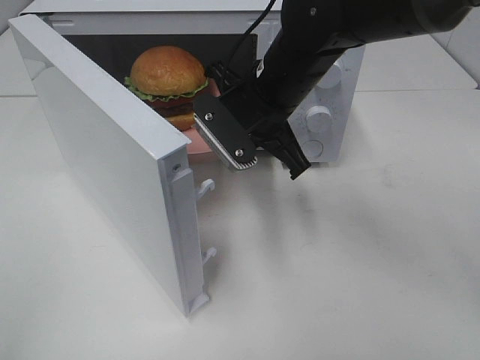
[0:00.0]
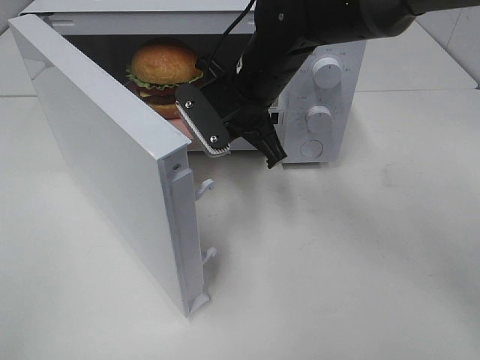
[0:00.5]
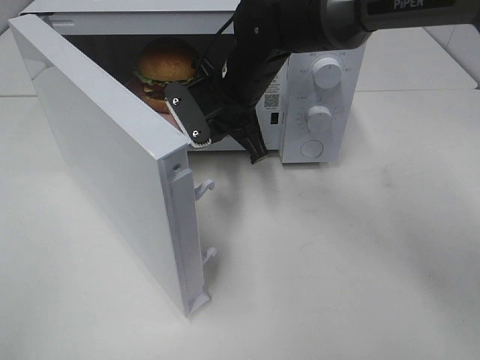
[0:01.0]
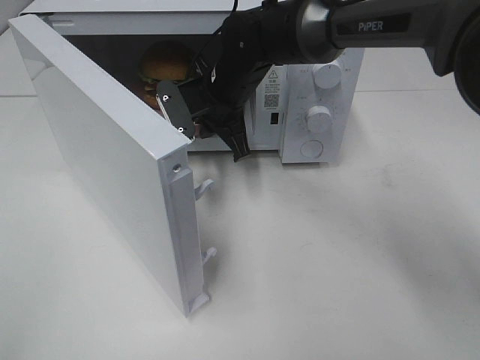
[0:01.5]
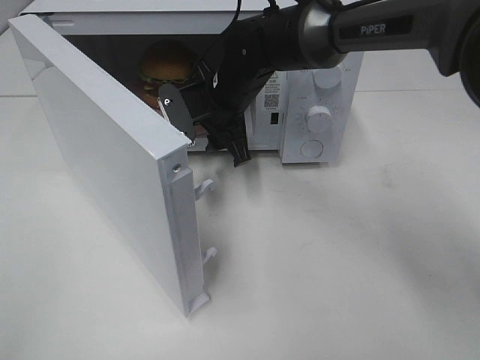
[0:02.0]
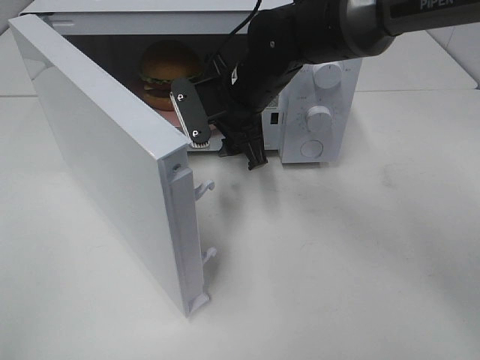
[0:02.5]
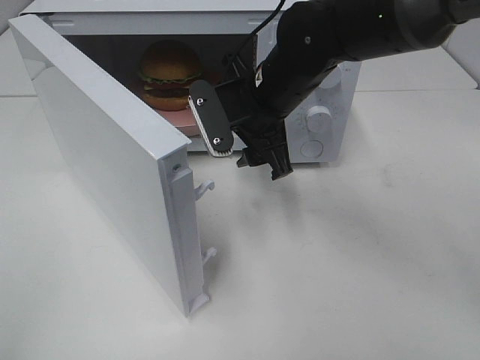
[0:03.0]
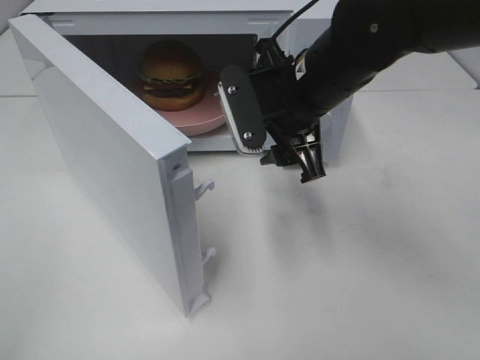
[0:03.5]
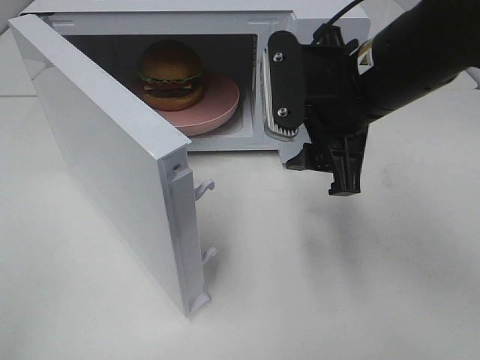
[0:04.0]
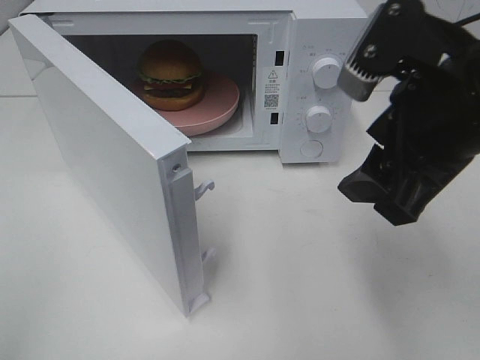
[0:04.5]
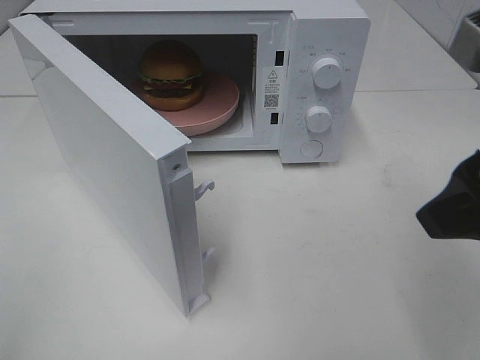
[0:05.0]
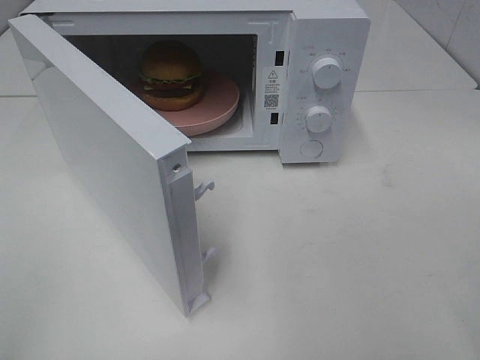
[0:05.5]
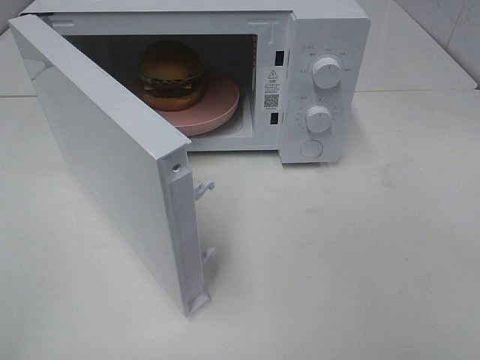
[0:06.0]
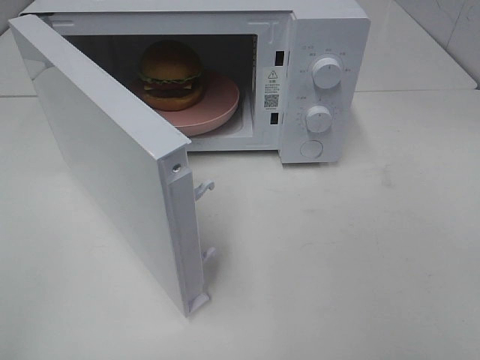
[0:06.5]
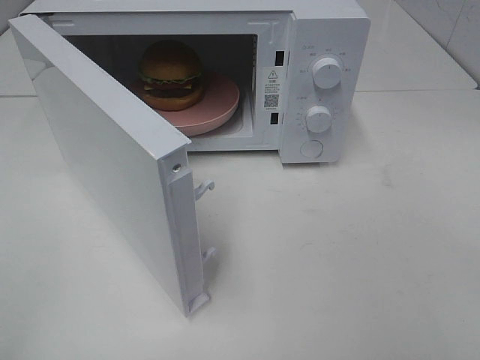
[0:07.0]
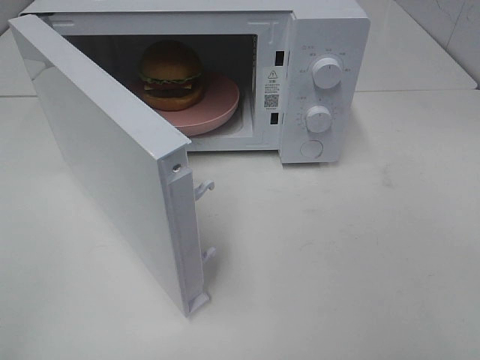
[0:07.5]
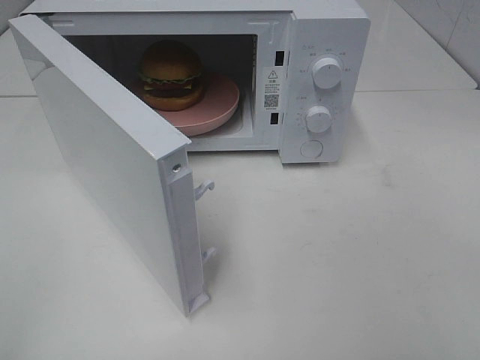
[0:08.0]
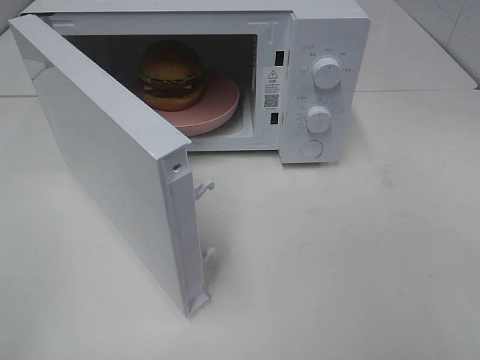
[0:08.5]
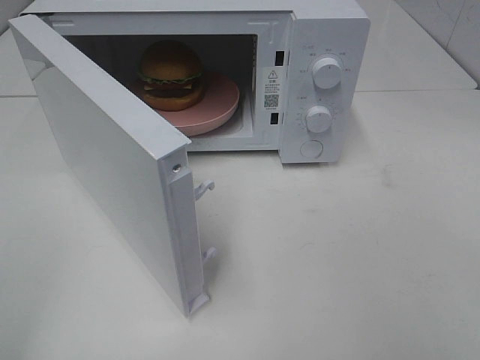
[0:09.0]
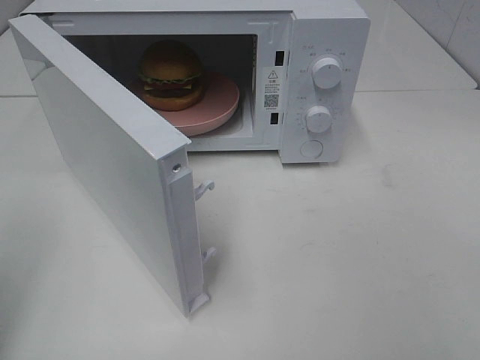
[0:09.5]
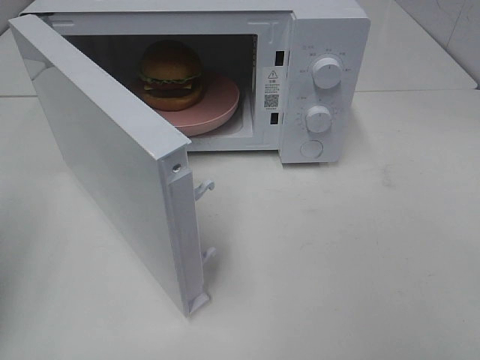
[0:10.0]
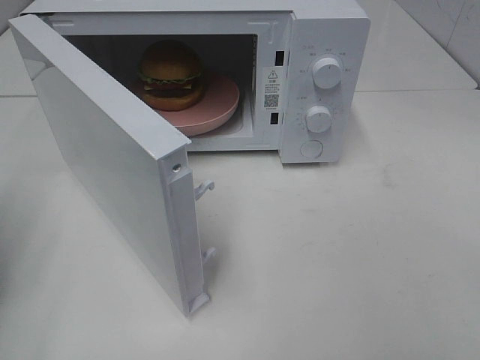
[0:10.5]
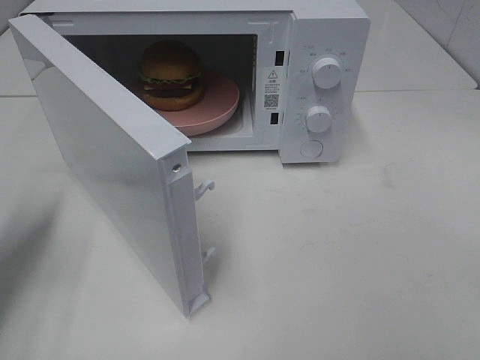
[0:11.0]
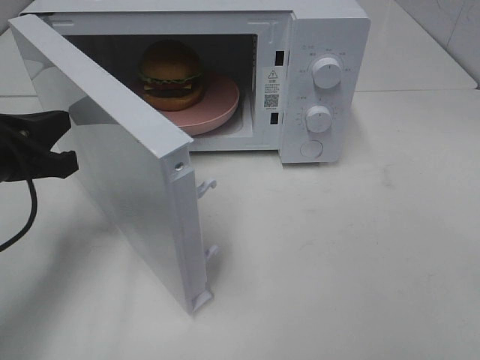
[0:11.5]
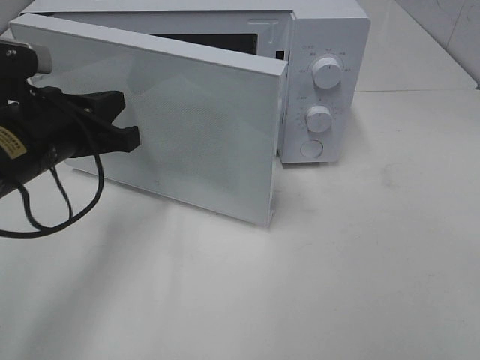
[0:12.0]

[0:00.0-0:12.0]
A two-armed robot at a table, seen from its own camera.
Task of the whole recording: Heat the burger.
Step, 0:00.0 to 0:02.5: Right hand: place the plate in the microwave.
0:00.0 to 0:02.0: The right gripper travels forward and downward by about 10 cm, and opens its fingers.
0:02.0 to 0:04.0: The right gripper is displaced backward, to the right and upward by about 20 cm.
0:04.0 to 0:06.0: The right gripper moves backward and to the right, approximately 30 cm.
0:08.0 to 0:10.0: The left gripper goes about 15 cm forward, and closes.
0:10.0 to 0:12.0: The left gripper shifts about 20 cm to the right, forward and downward.

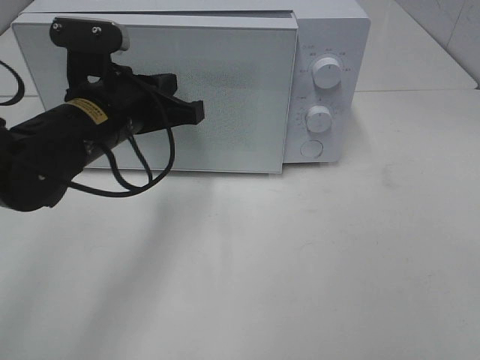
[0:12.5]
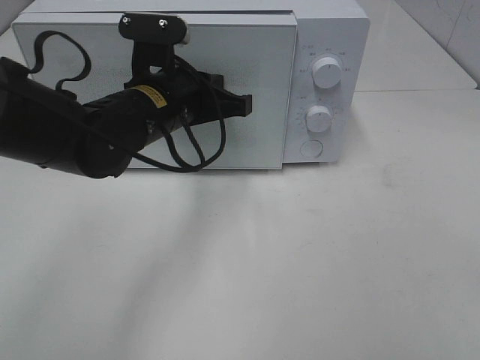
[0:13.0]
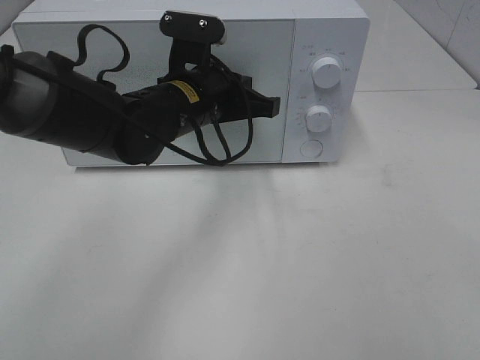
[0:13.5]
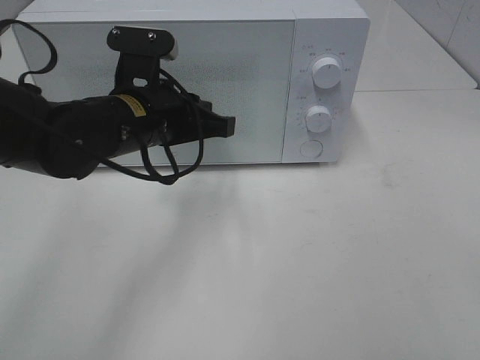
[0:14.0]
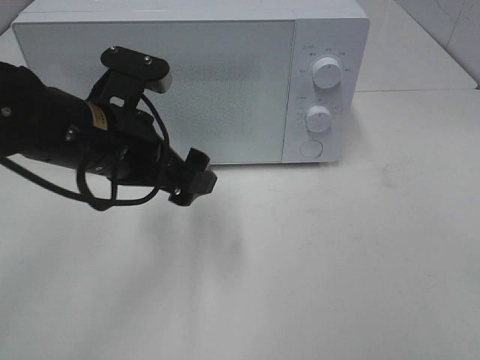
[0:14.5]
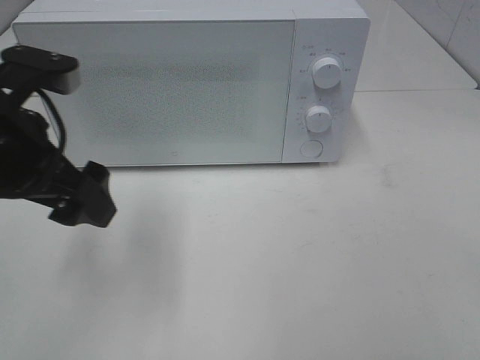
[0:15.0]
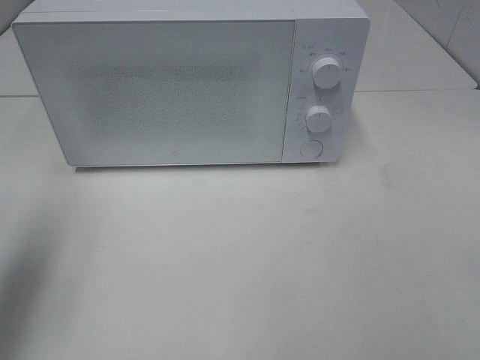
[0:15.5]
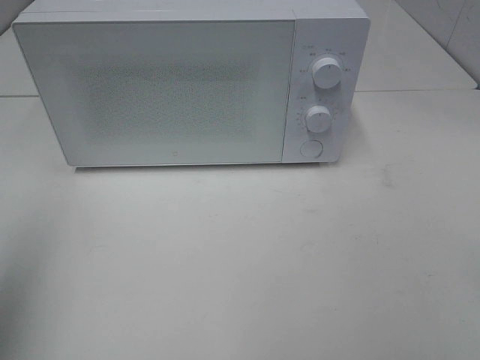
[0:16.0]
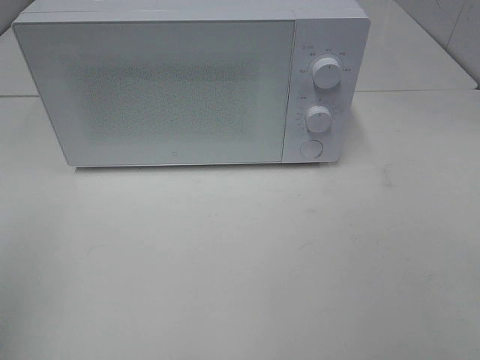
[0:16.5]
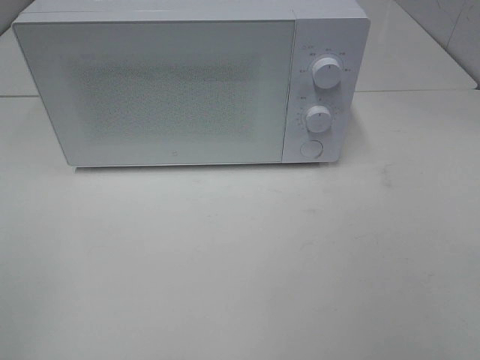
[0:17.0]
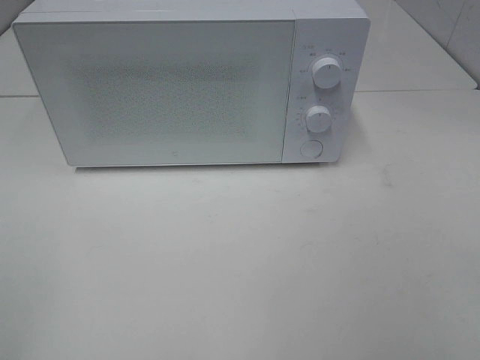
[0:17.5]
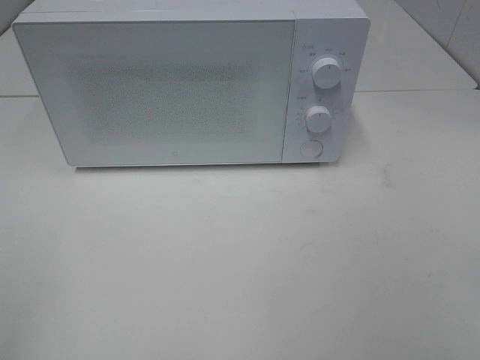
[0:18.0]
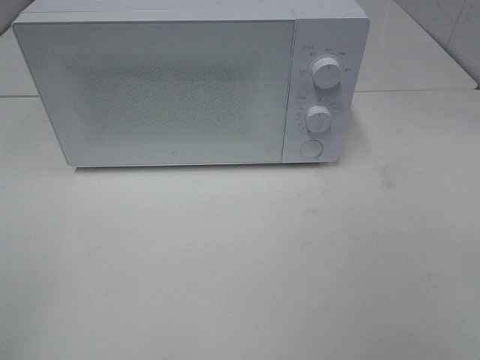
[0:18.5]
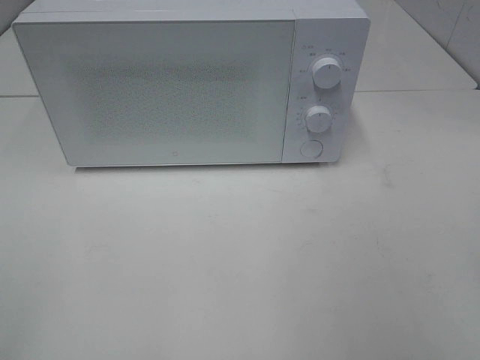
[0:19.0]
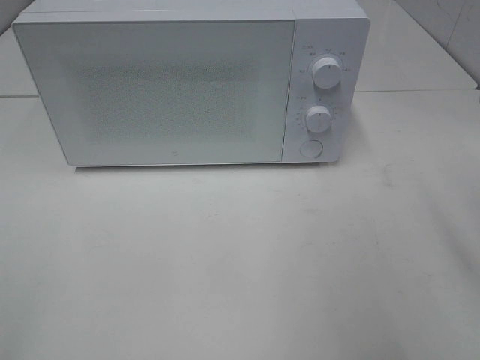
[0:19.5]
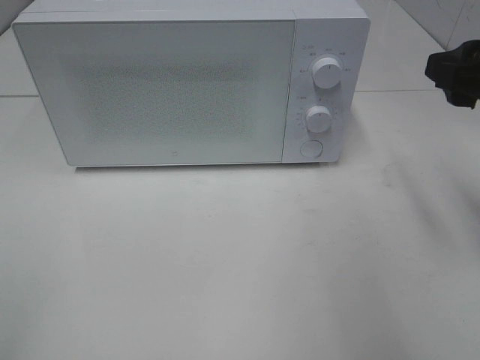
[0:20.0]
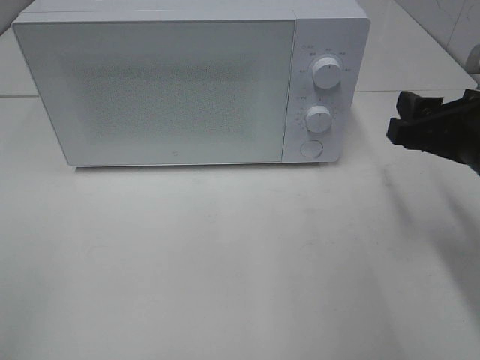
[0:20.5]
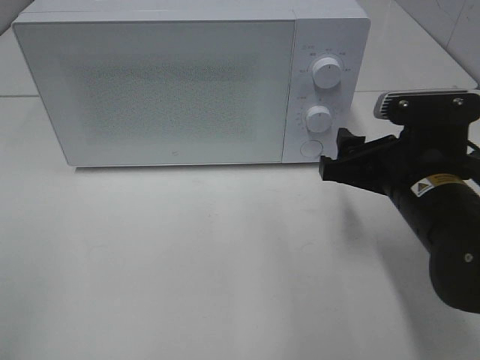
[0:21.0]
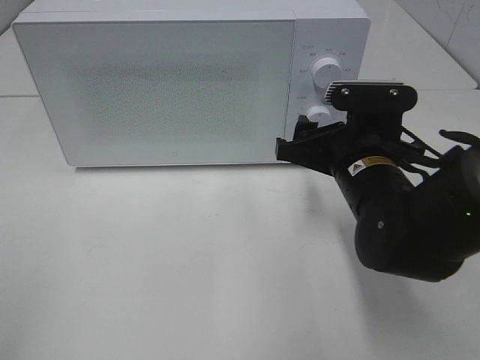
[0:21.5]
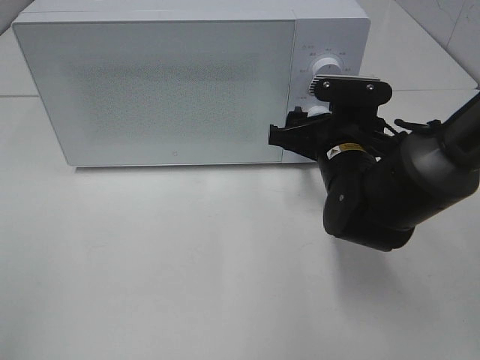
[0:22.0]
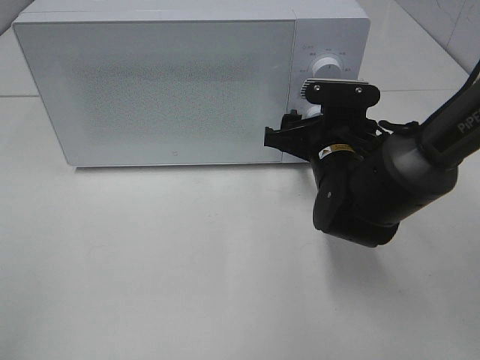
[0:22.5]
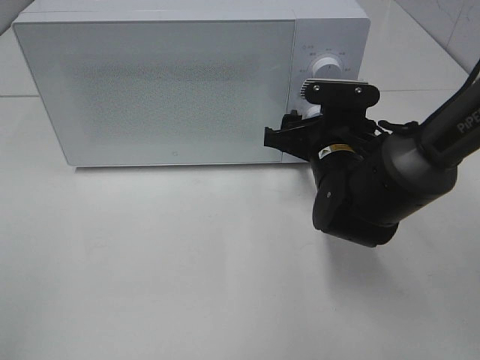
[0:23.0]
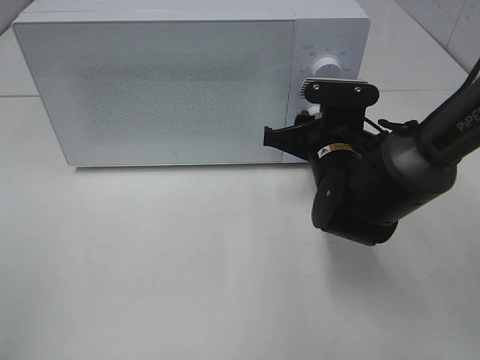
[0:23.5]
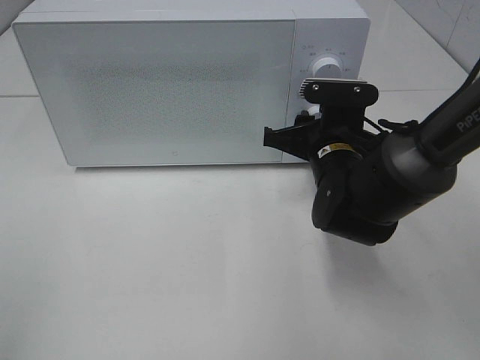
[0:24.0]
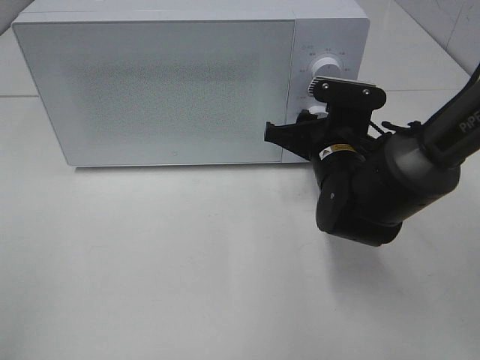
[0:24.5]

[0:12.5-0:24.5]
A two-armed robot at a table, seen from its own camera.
Task of the whole recording: Heat the burger.
0:12.5 to 0:14.5: The left gripper opens its fingers.
0:14.5 to 0:16.5: The left gripper heads to the left, backward and upward, covering some 30 cm.
0:18.5 to 0:20.5: The right gripper travels forward and downward by some 25 cm.
0:20.5 to 0:22.5: The right gripper moves to the left, forward and downward, approximately 15 cm.
0:22.5 to 0:24.5: The grippers move only a little.

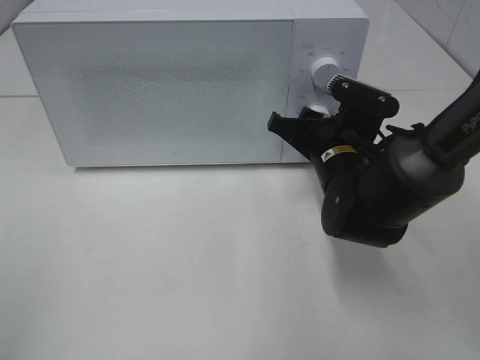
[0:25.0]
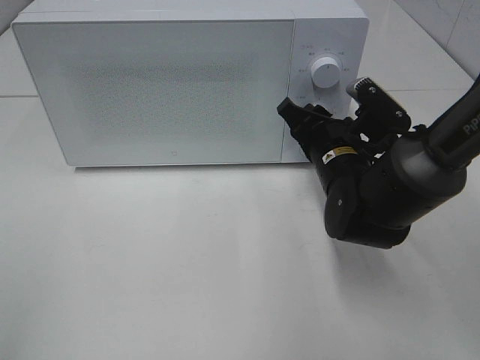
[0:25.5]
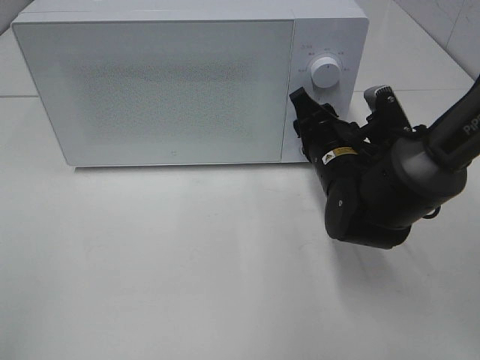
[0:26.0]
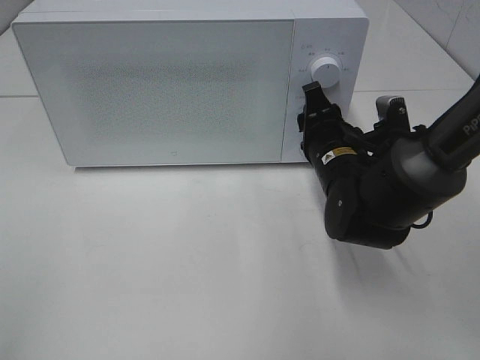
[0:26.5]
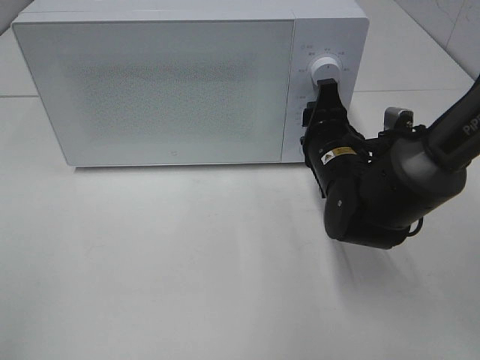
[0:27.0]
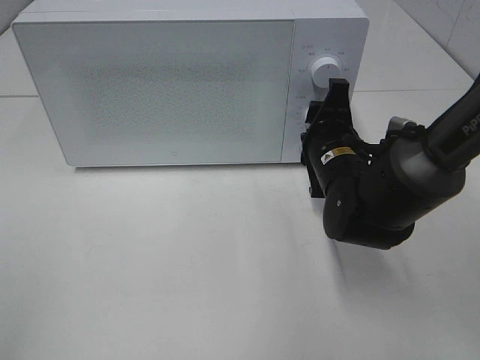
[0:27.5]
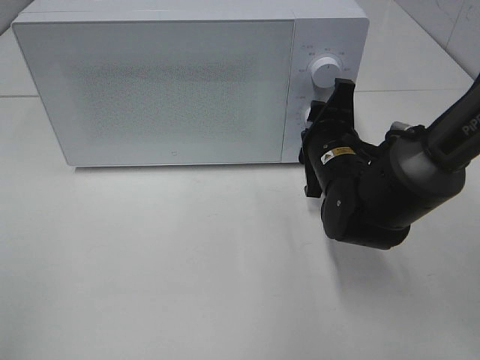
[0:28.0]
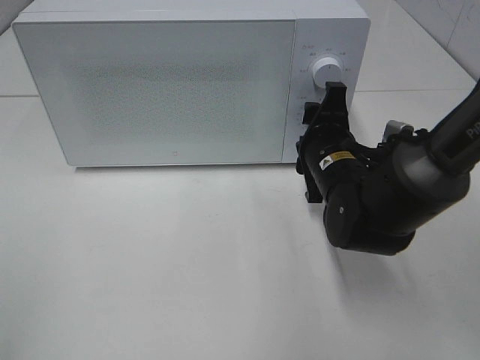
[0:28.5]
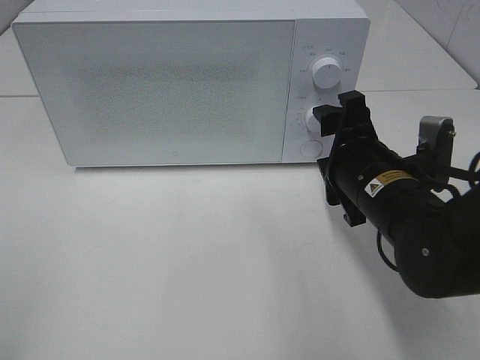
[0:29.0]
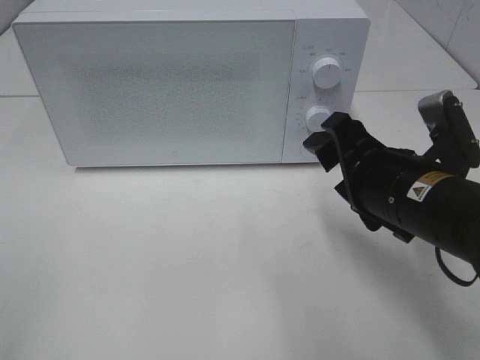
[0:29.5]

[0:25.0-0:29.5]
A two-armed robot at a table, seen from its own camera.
Task of the whole recording: Heat the burger.
Step, 0:25.0 to 0:28.5: Right hand: twist timer button.
0:27.0 to 0:29.5: The right gripper is displaced backward and upward by roughly 10 cm.
